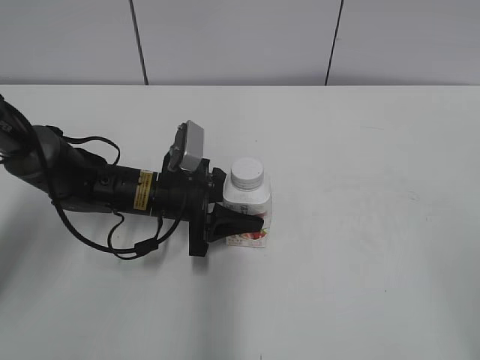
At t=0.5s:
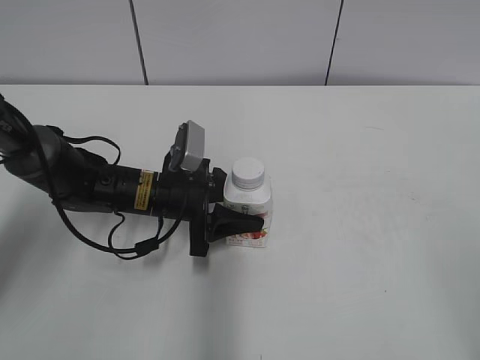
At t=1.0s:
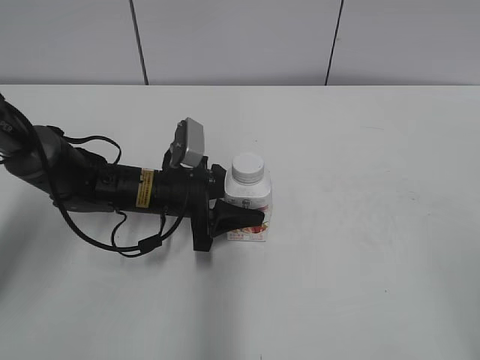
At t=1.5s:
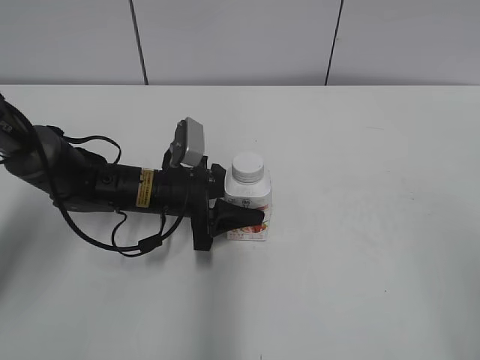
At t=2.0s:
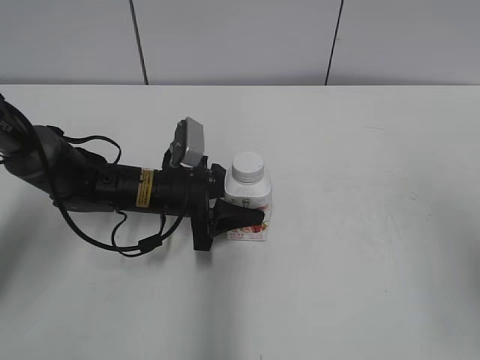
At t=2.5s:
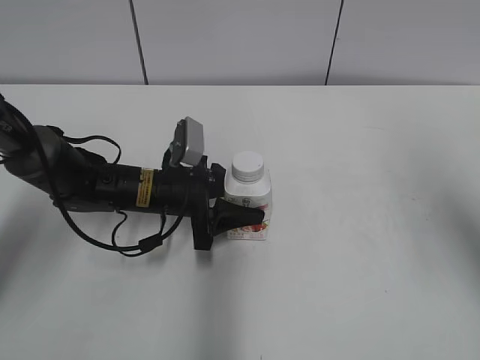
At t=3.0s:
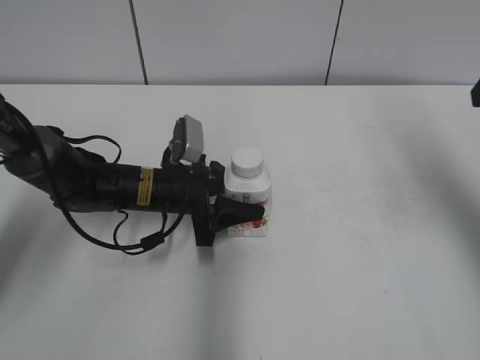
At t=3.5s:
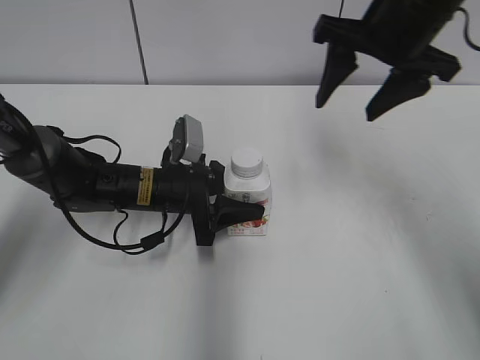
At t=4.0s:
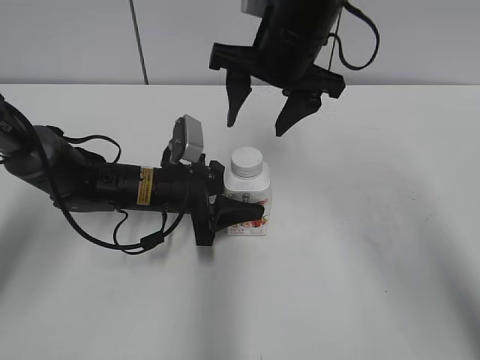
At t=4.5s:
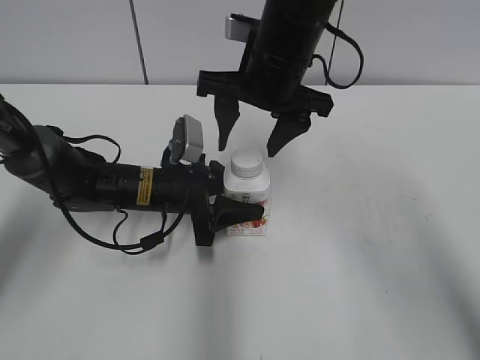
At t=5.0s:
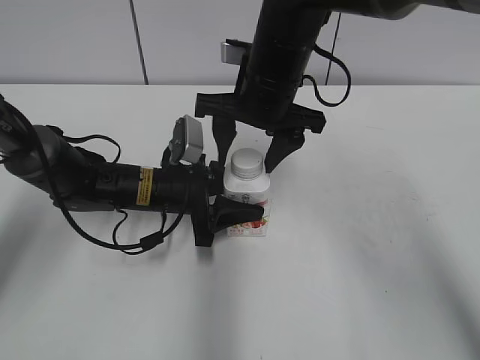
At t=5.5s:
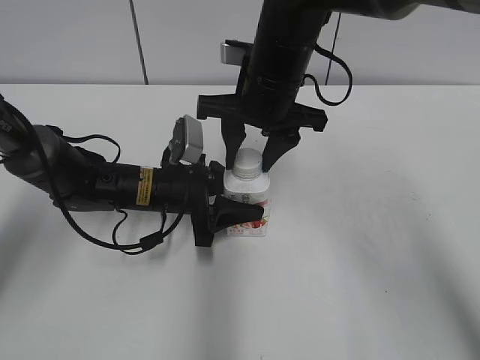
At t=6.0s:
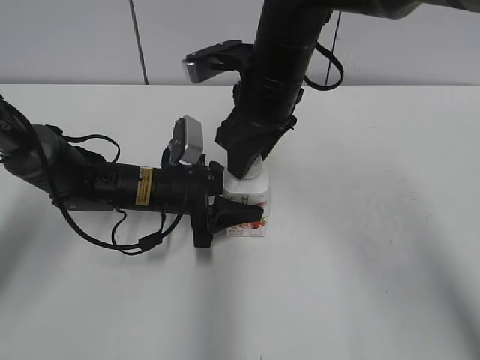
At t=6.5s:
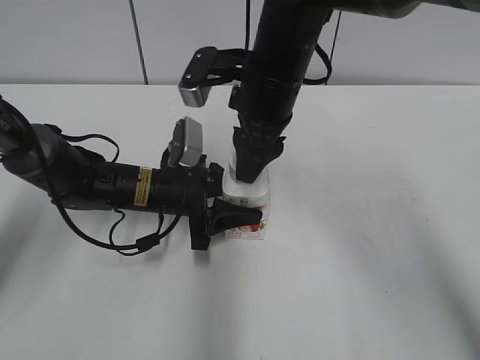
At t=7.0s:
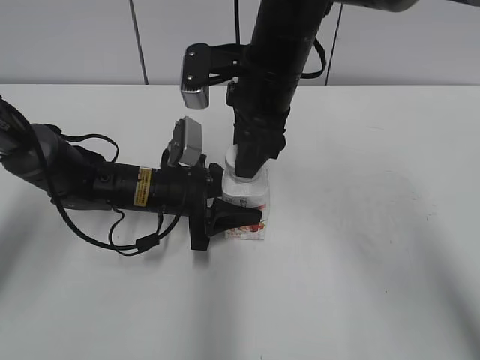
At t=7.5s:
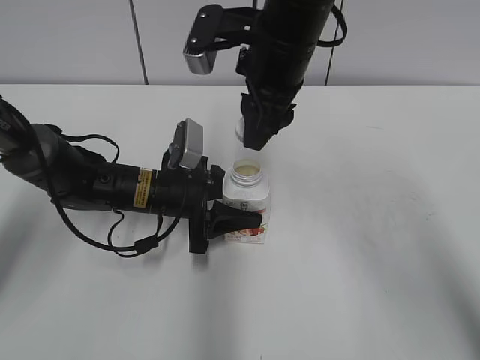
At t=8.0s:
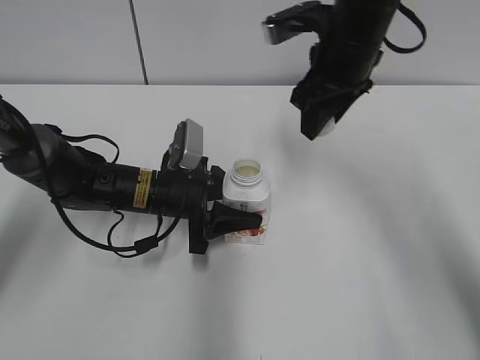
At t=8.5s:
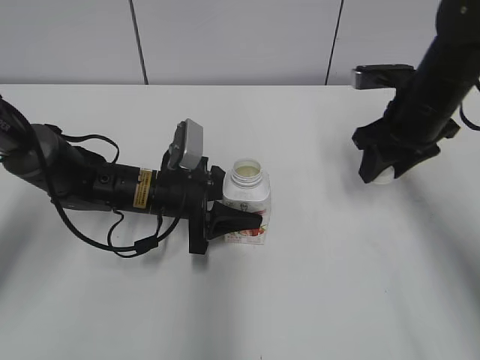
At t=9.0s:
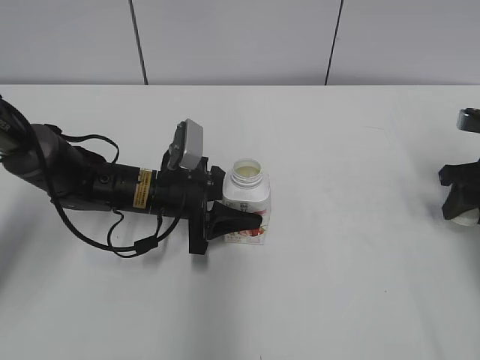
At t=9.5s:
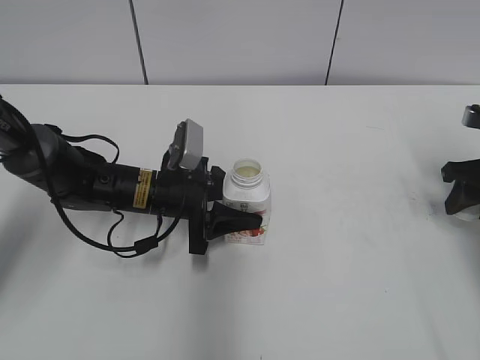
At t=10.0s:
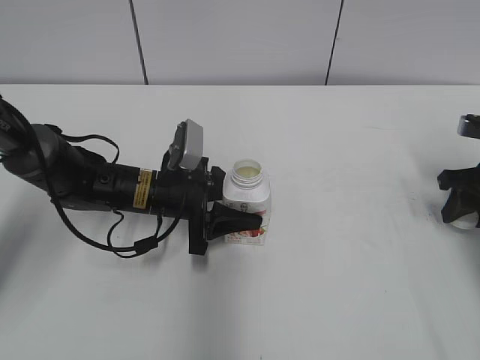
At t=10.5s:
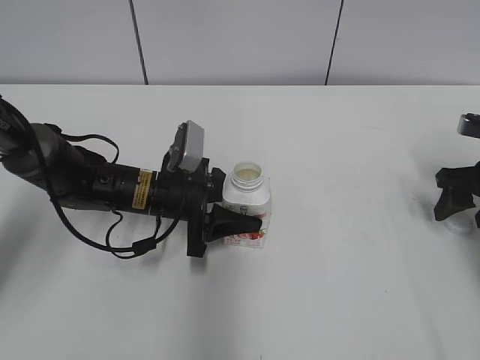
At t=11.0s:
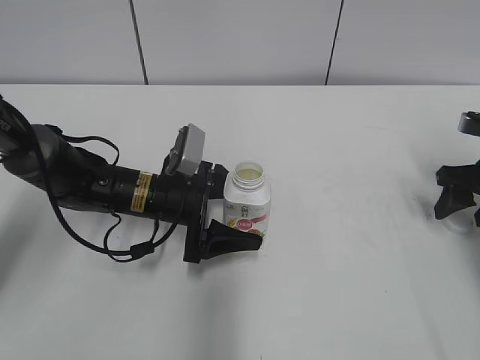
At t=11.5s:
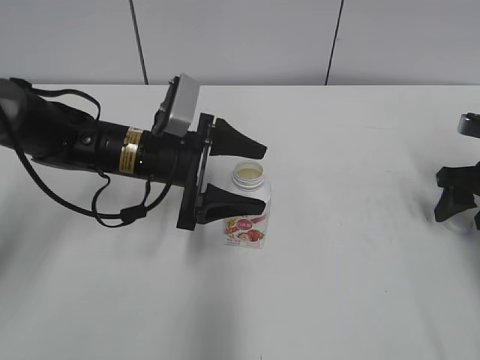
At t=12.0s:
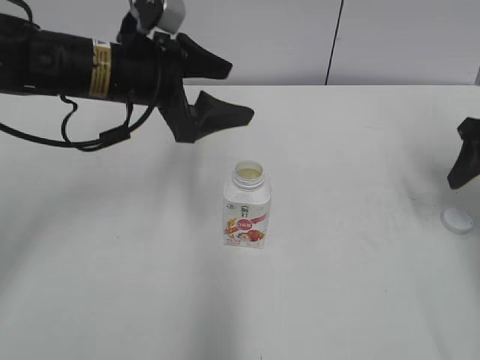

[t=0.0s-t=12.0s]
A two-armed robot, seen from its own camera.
Step, t=7.5s to t=10.0s: Place the bottle cap on the right.
Step, t=10.5s to t=11.0s: Place the Yili Changqing with the left hand.
t=0.0s to t=2.0s: The right gripper travels forward by some 10 cm.
t=2.0s to t=4.0s: The right gripper travels forward and to the left by some 35 cm.
t=4.0s to t=6.0s: The right gripper closes its fingers.
t=6.0s to t=8.0s: The right gripper travels to the right by roughly 5 cm.
t=8.0s to t=10.0s: The right gripper shifts roughly 25 cm to the right and downward.
t=10.0s to t=12.0s: The right gripper goes roughly 10 cm upward, and opens its fingers; the left gripper goes some 15 cm upward, and opens up.

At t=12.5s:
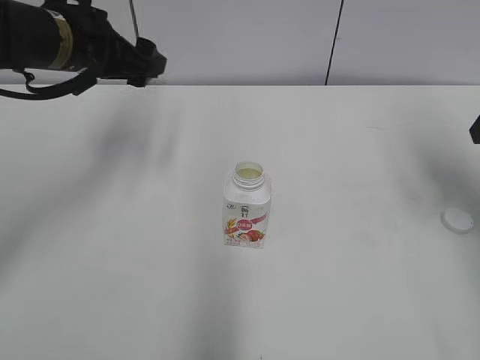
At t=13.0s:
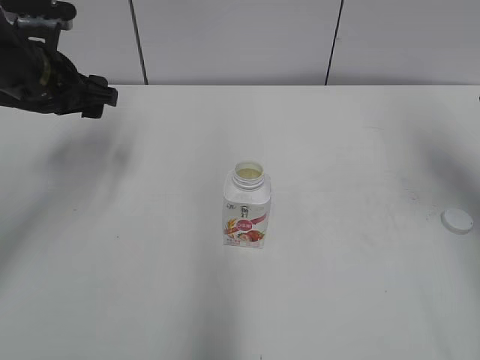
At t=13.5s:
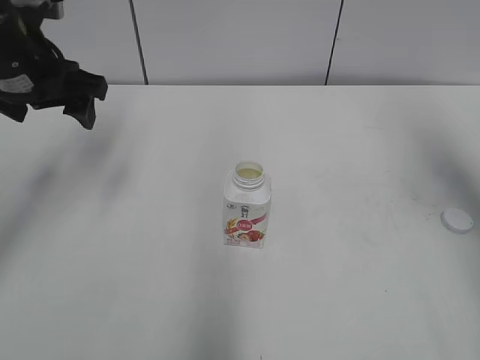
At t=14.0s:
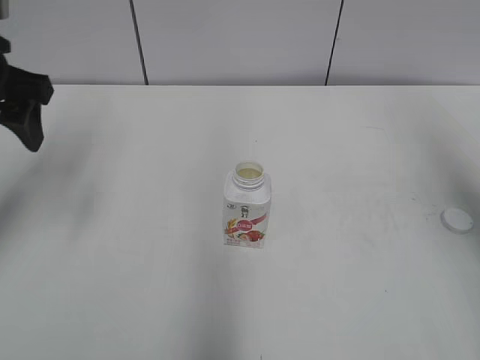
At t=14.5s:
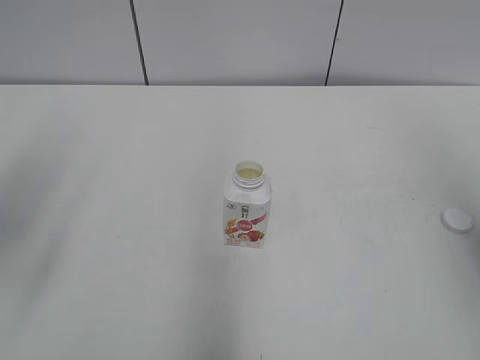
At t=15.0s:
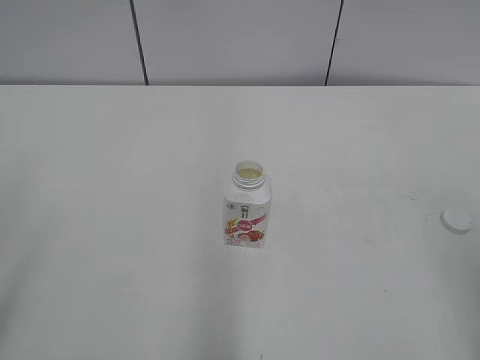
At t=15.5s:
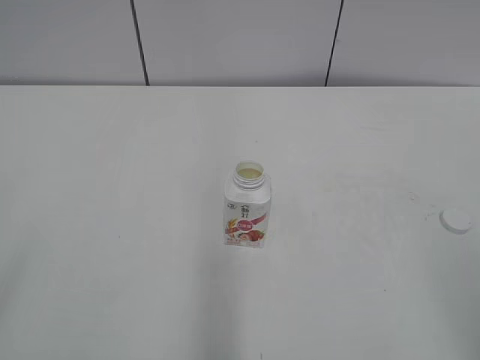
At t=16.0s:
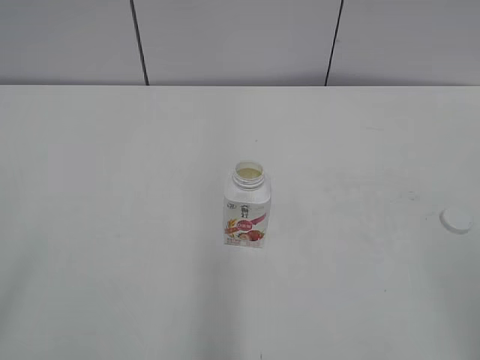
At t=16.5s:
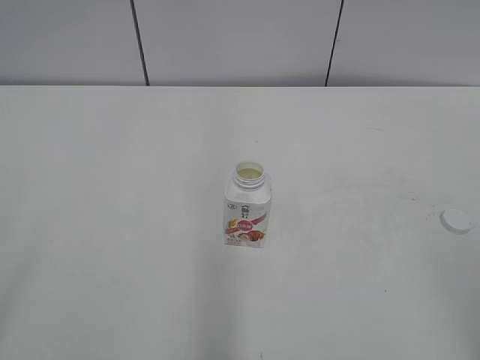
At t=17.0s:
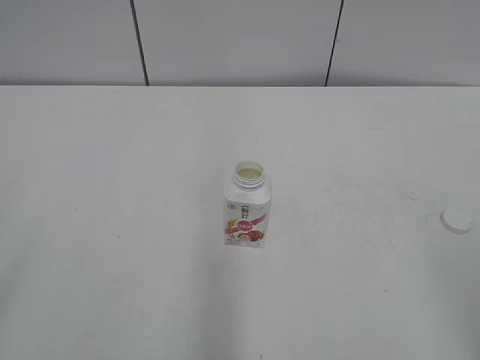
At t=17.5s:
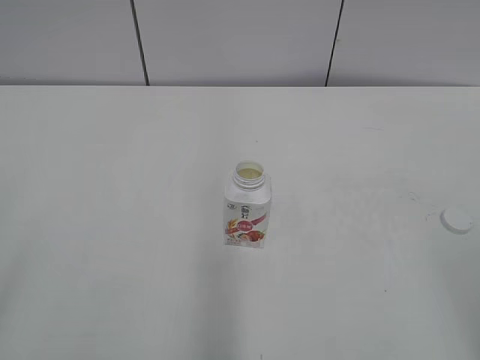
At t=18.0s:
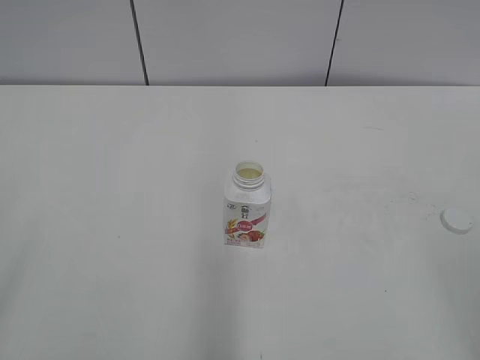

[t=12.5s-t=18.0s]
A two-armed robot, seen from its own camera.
t=12.5s to t=14.5s: The left gripper heads backward and to the left, covering some 20 cm, while the right gripper travels backward and upward by about 15 cm.

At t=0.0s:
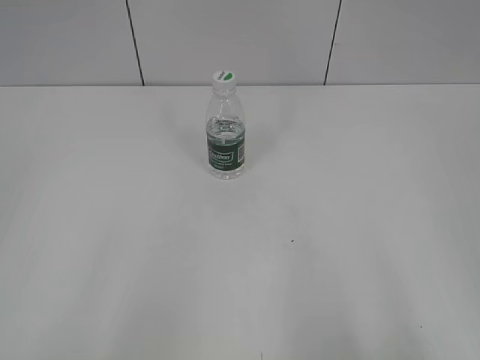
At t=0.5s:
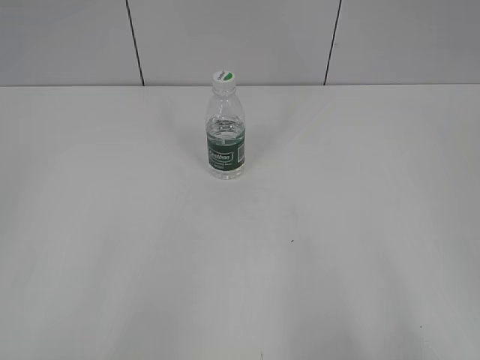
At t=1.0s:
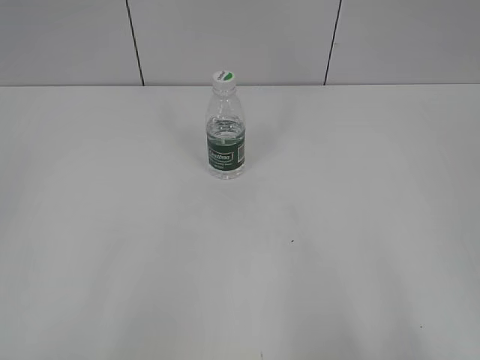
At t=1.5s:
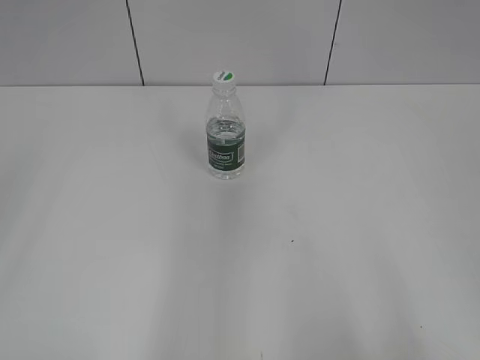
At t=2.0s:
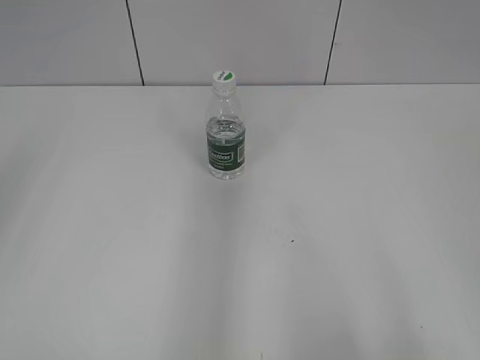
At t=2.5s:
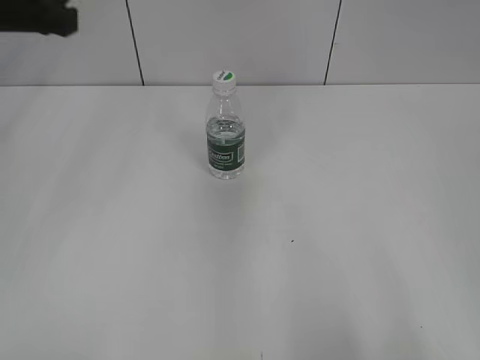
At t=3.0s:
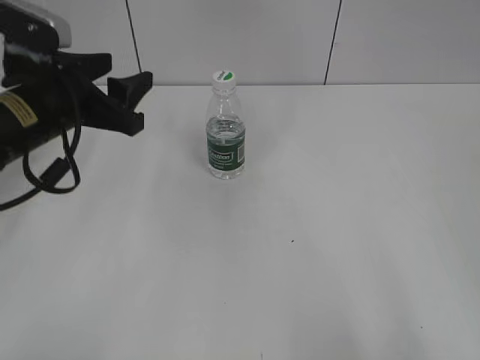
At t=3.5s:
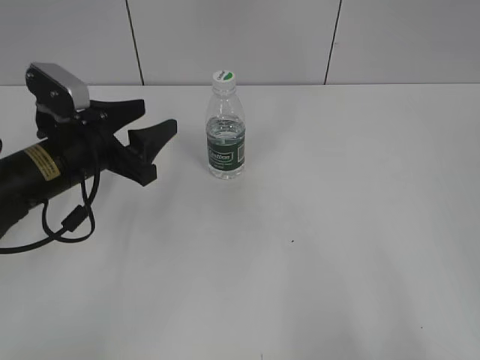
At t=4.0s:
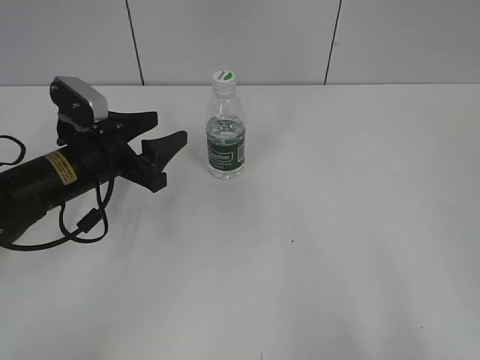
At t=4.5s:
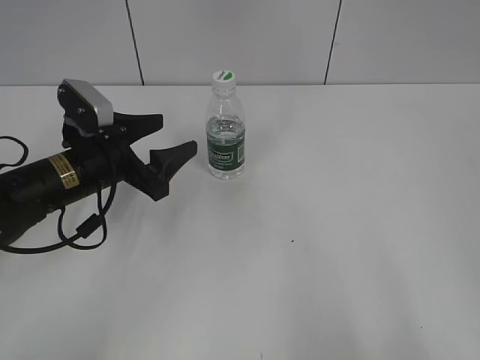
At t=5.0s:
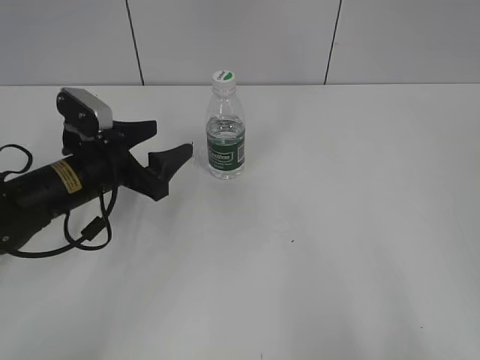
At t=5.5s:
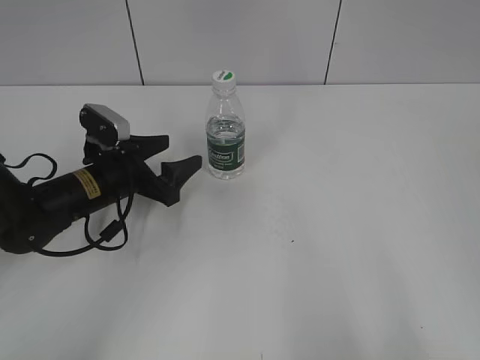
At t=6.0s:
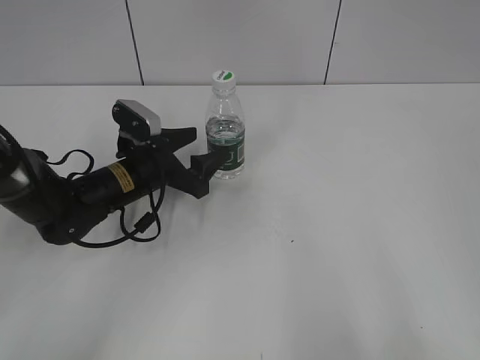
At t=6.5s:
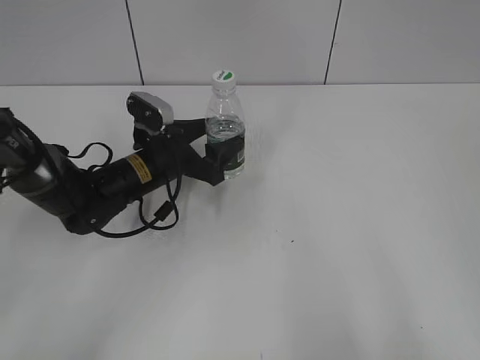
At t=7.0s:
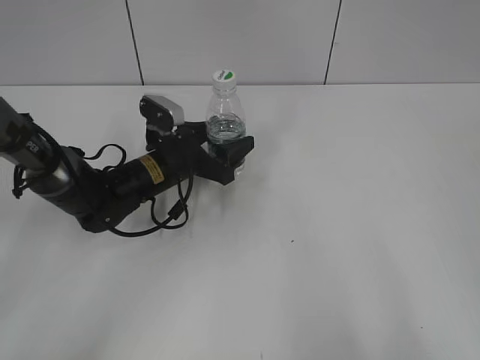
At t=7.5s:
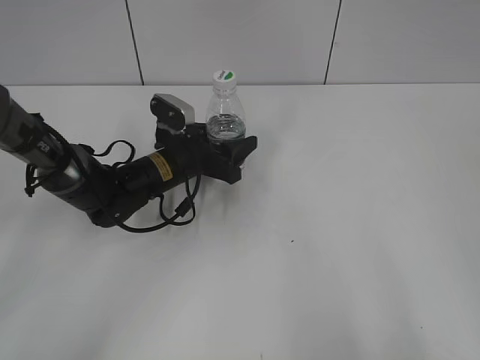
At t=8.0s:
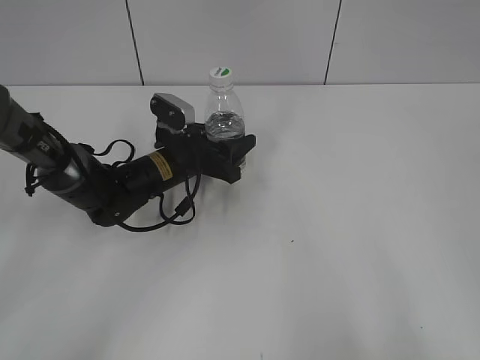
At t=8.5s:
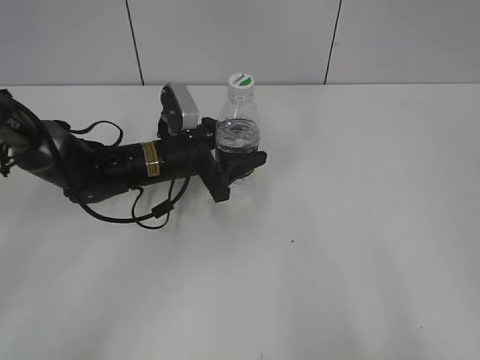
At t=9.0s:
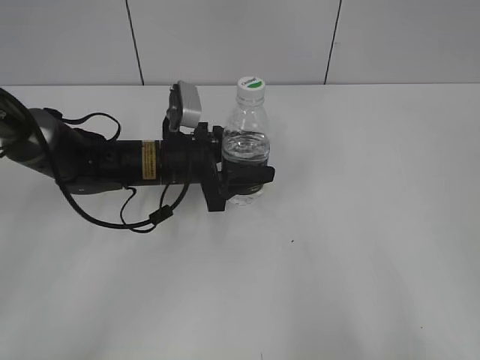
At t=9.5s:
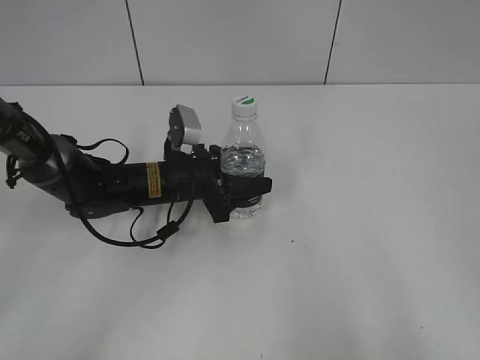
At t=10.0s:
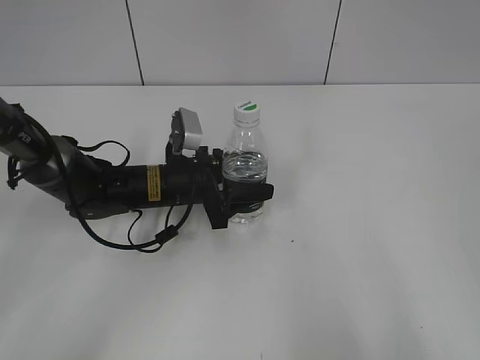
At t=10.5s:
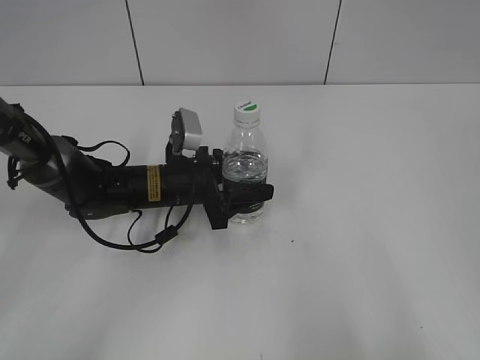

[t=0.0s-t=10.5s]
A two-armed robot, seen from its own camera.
Step, t=0.0s to t=7.5s: Grasp the bottle and move it to the center of the table with the left gripper.
Step, t=8.0s to t=10.0s: Lift the bottle and move it to the center of the table with the left gripper.
t=2.0s to t=4.0s: The left gripper is displaced downward, forward and to the right by roughly 35 cm.
t=4.0s to t=6.5s: The left gripper shifts approximately 10 cm to the right and forward, and opens up.
t=6.5s to t=8.5s: The left gripper closes.
t=8.5s to t=10.5s: There are only small adjustments of the grippers.
